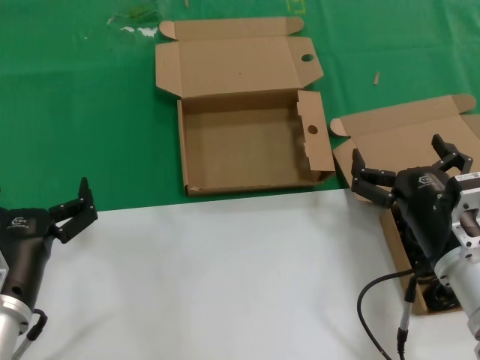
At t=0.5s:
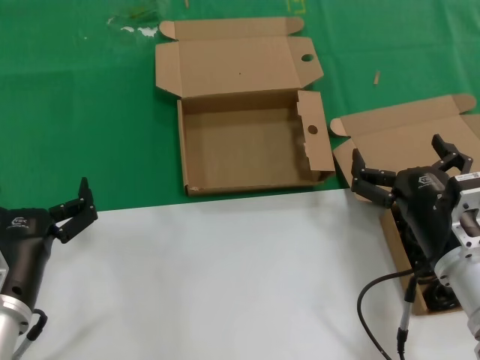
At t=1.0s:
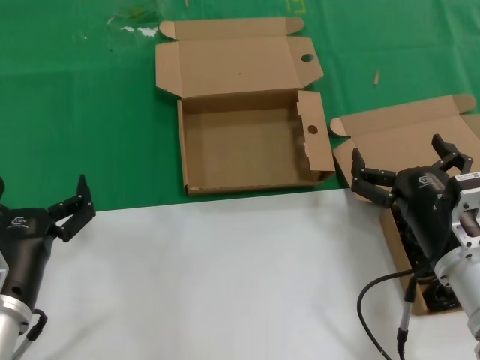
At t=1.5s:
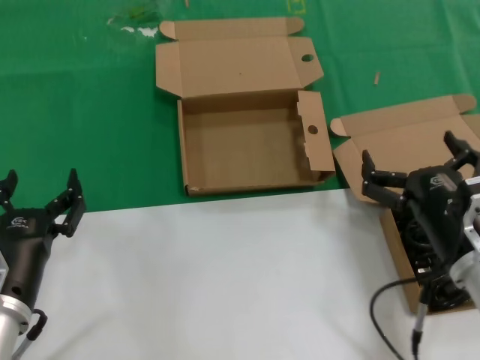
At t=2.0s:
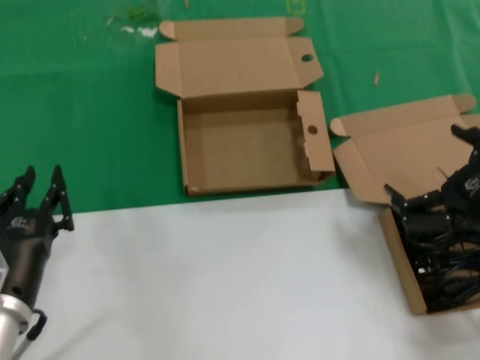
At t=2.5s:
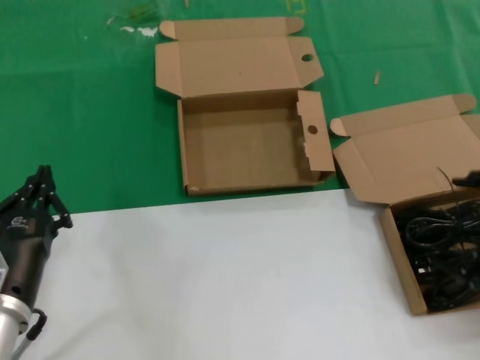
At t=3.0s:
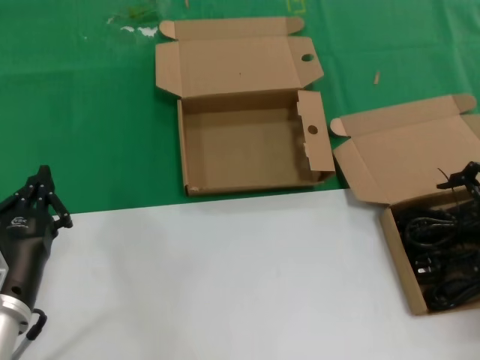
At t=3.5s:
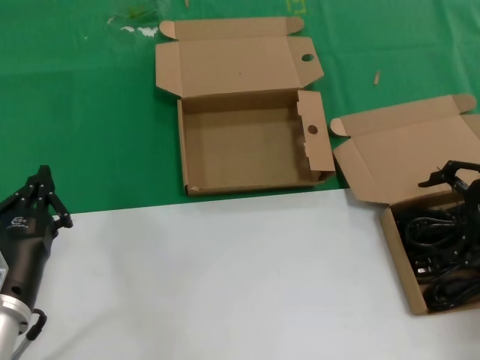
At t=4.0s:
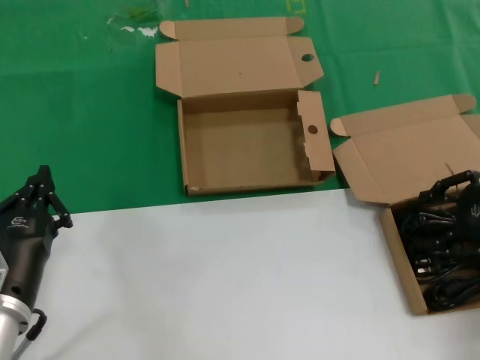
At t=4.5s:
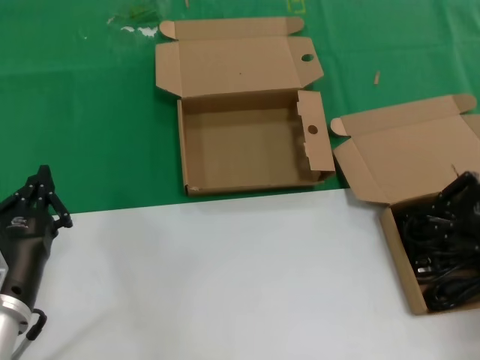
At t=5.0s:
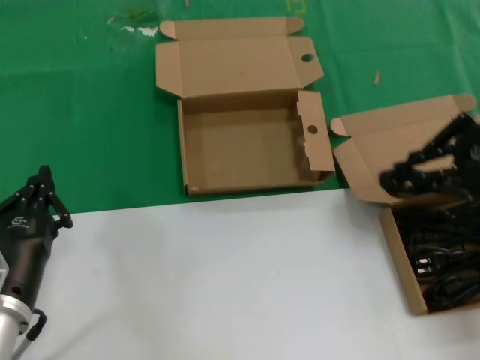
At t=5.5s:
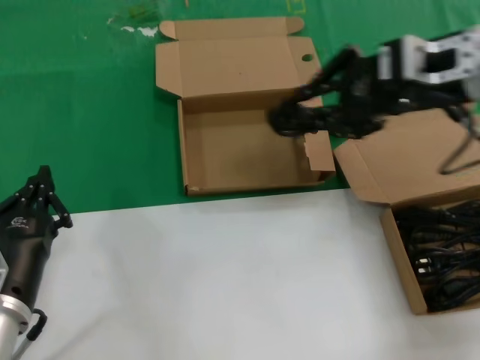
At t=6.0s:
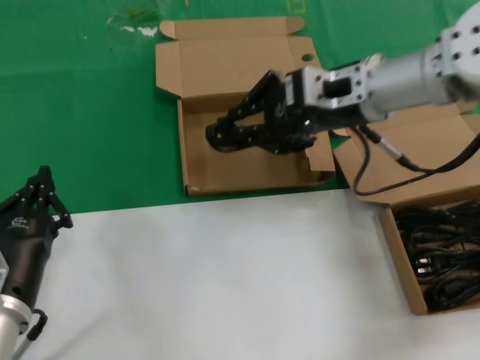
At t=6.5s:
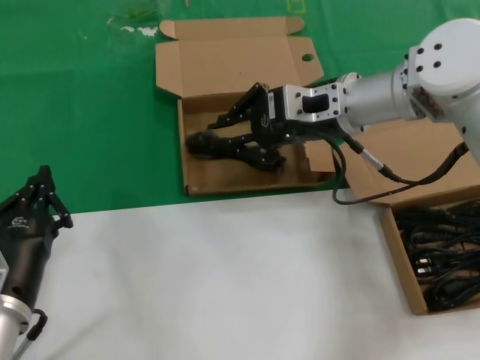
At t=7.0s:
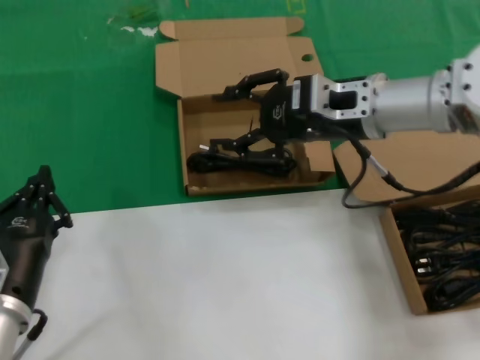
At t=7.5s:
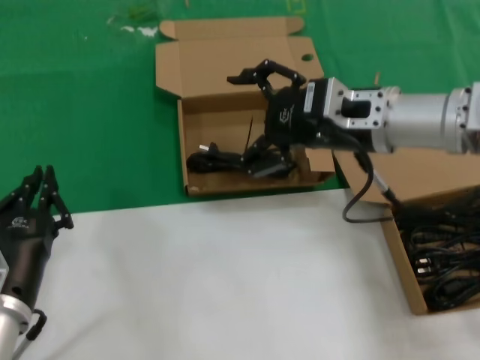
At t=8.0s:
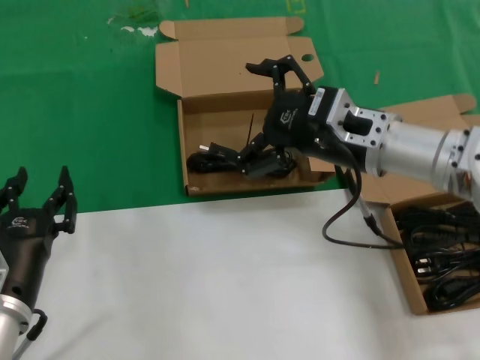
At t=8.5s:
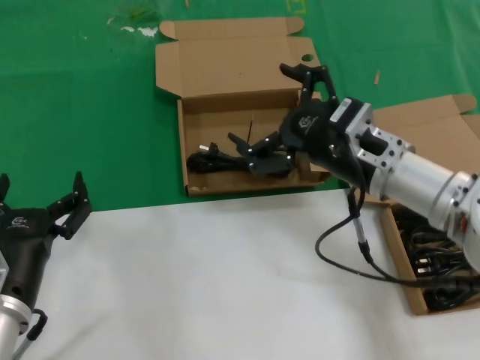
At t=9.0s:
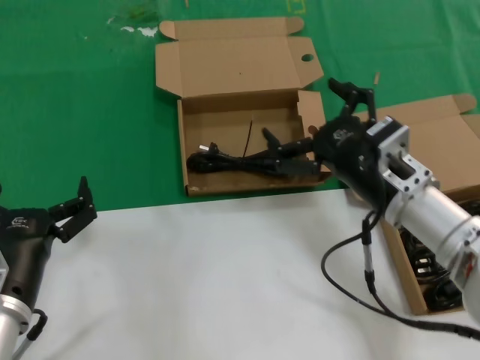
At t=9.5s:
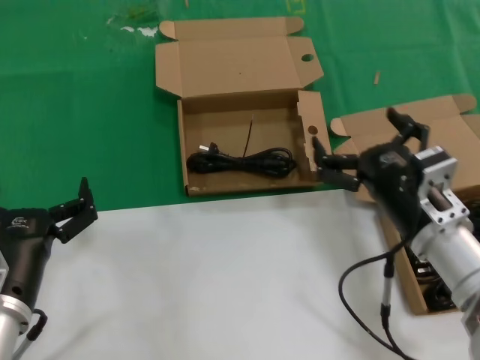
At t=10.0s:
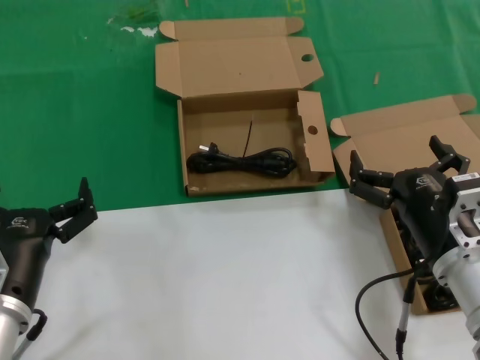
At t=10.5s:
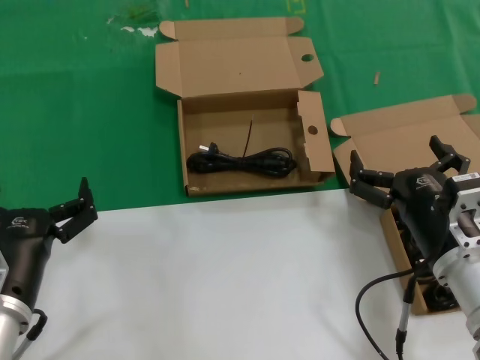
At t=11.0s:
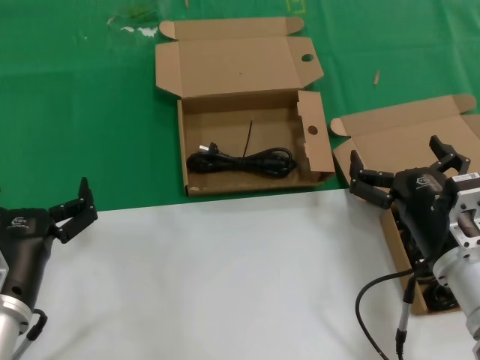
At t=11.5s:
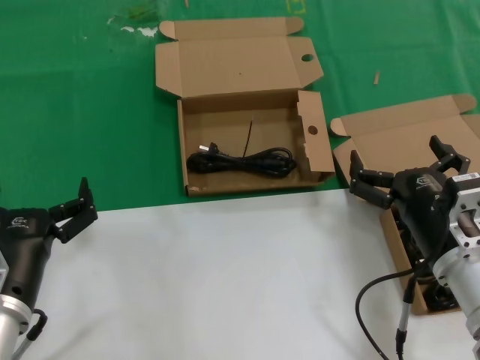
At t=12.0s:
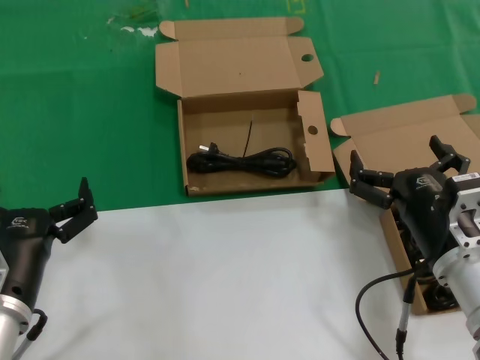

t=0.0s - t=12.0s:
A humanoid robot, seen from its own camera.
Task of the whole recording: take the parts from the box containing them and put them into an empty box.
Step, t=0.0s - t=4.0s: Grasp the data cable.
Step, t=4.5s - t=7.0s: Place the data cable in the another box.
t=0.0s - t=2.0s: The right hand moves to the right and upward, about 10 cm.
t=2.0s - t=4.0s: The right hand goes roughly 15 cm forward, to the right and upward.
t=4.0s - t=6.0s: The right hand moves to the left and forward, about 25 cm.
t=6.0s - t=8.0s: The right hand moves downward and backward, roughly 10 cm.
t=8.0s - t=10.0s: The right hand goes some 20 cm downward and backward.
t=10.0s - t=12.0s: Both hands stay about where they are.

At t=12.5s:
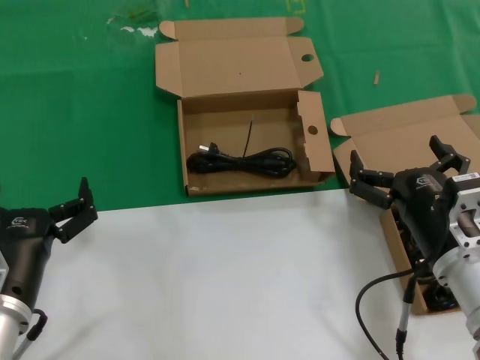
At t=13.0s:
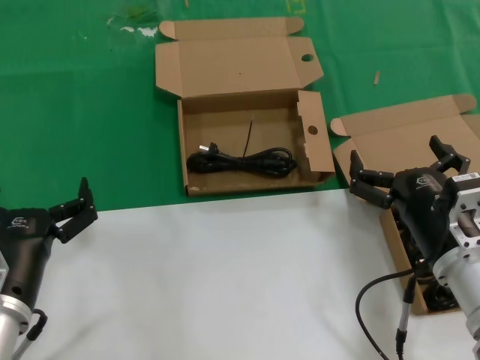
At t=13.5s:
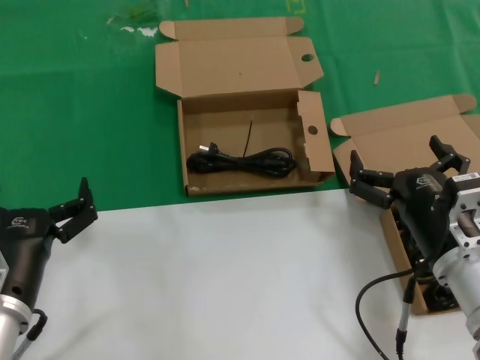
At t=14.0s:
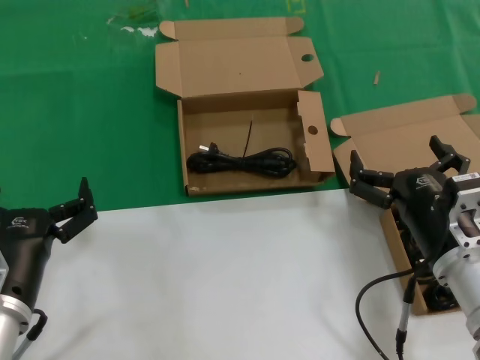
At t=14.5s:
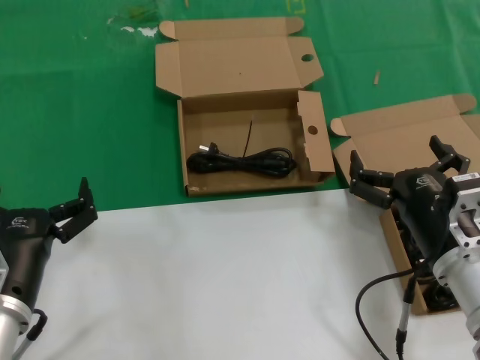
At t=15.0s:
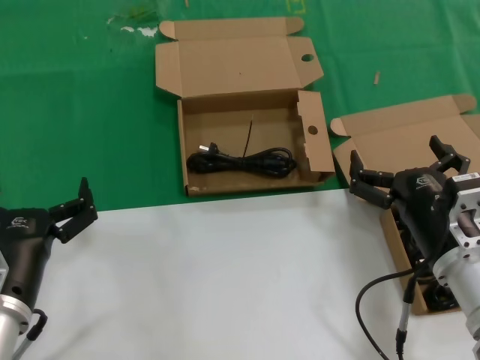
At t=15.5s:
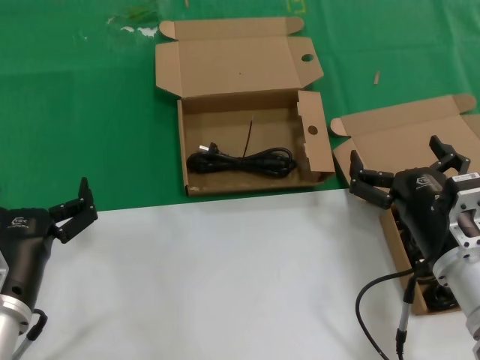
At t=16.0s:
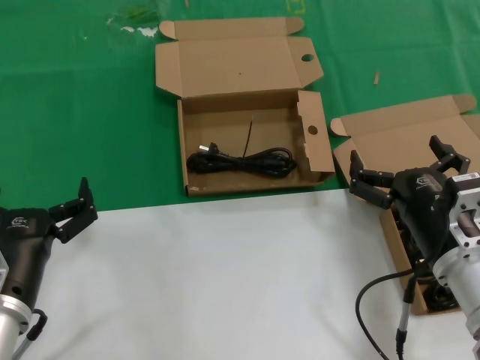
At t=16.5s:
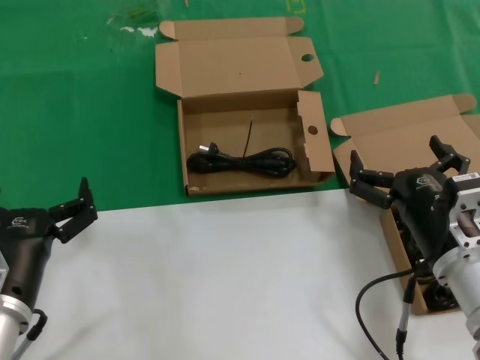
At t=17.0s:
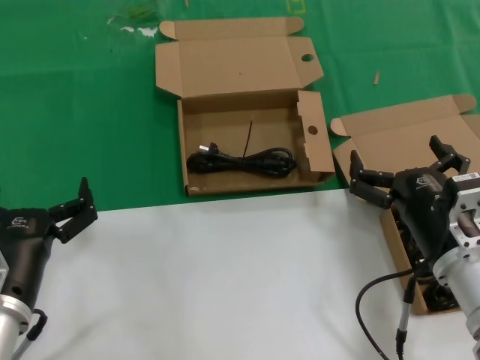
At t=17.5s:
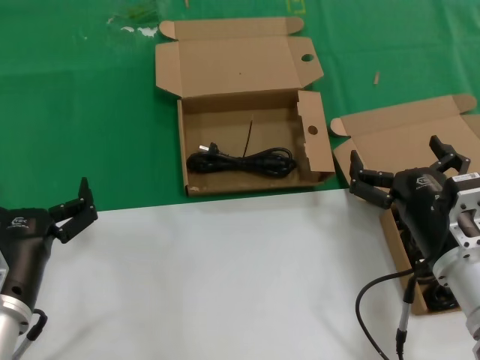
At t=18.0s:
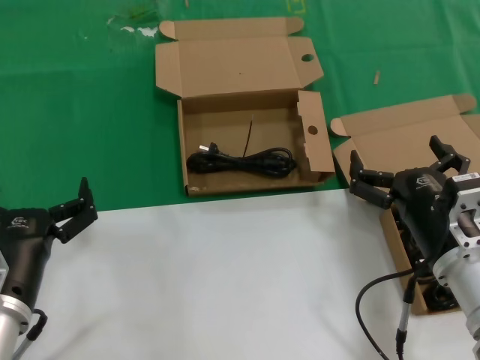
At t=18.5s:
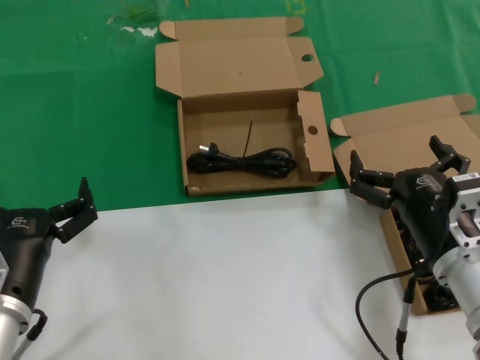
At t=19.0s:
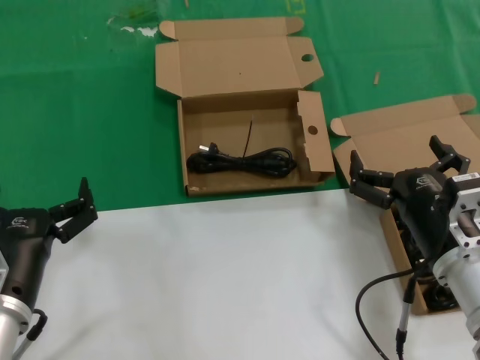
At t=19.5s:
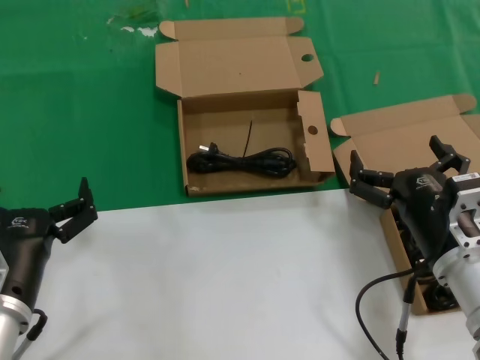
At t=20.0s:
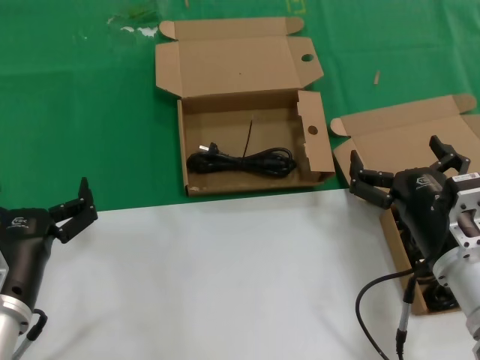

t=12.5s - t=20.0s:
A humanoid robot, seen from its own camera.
Task of the whole recording: take the parts from the box containing them and put them into an empty box.
t=12.5s - t=20.0s: The two hands keep their place.
